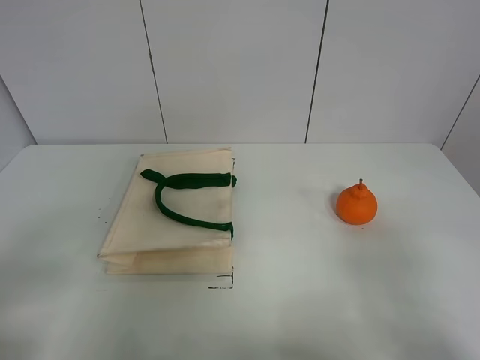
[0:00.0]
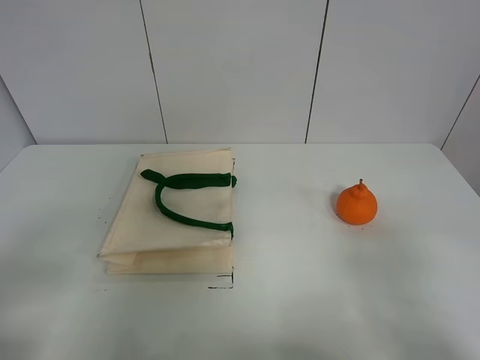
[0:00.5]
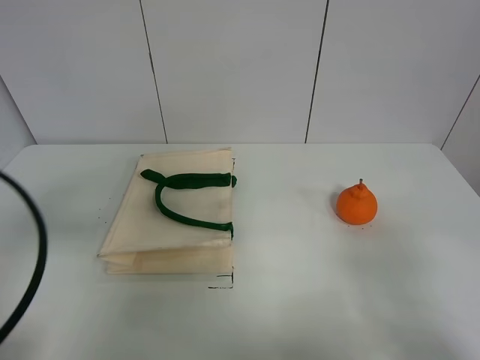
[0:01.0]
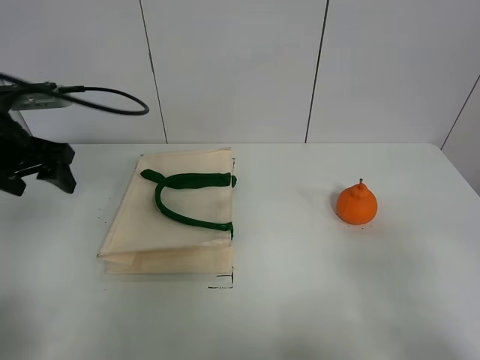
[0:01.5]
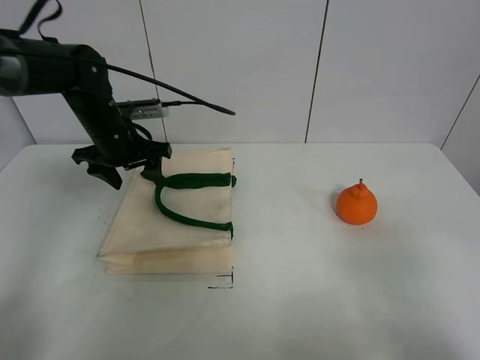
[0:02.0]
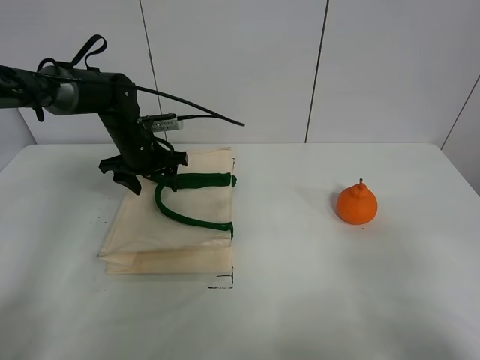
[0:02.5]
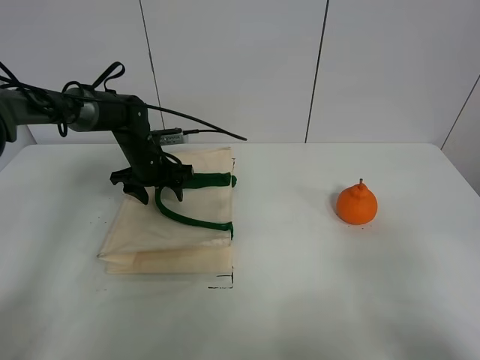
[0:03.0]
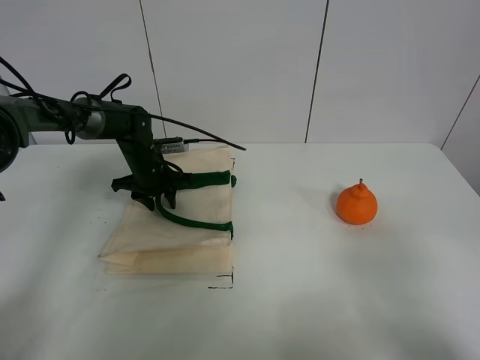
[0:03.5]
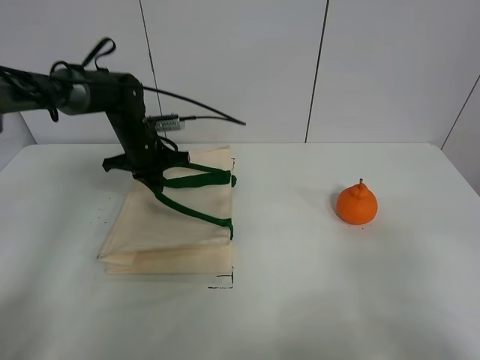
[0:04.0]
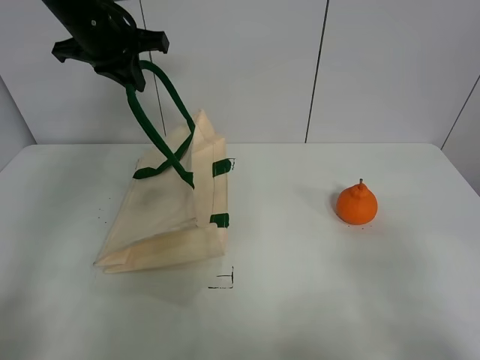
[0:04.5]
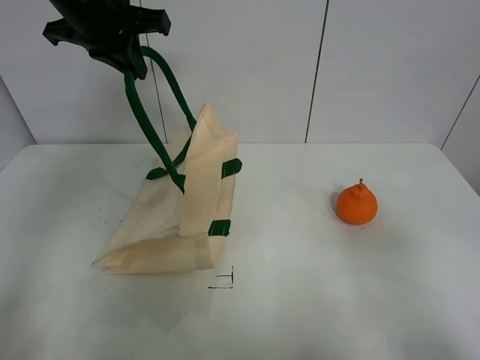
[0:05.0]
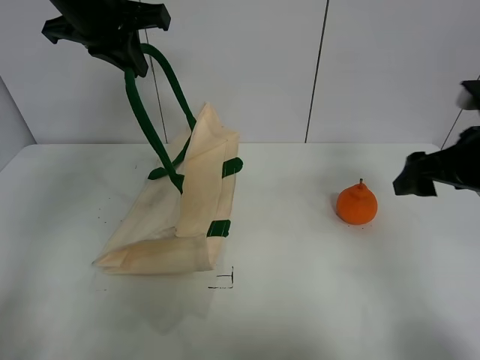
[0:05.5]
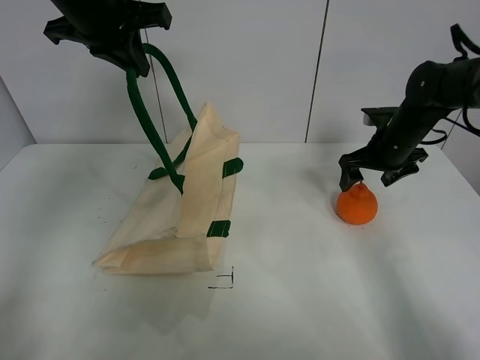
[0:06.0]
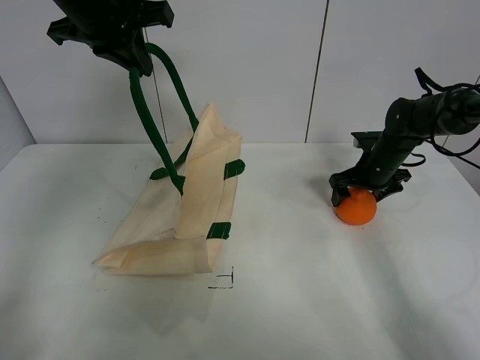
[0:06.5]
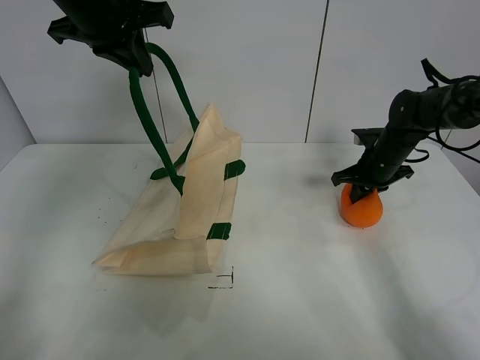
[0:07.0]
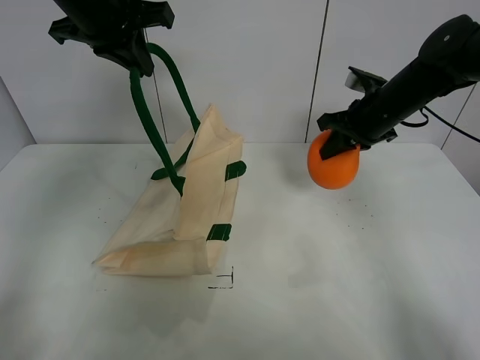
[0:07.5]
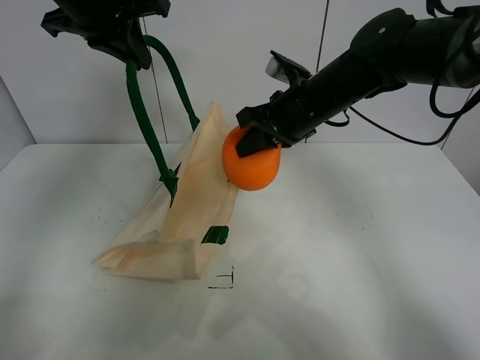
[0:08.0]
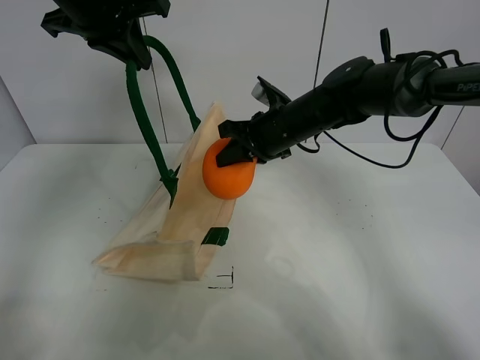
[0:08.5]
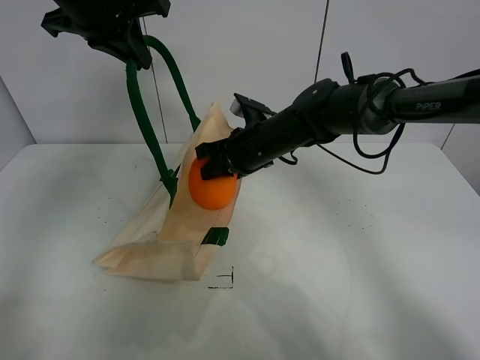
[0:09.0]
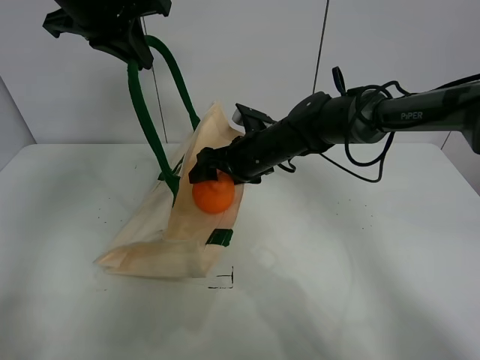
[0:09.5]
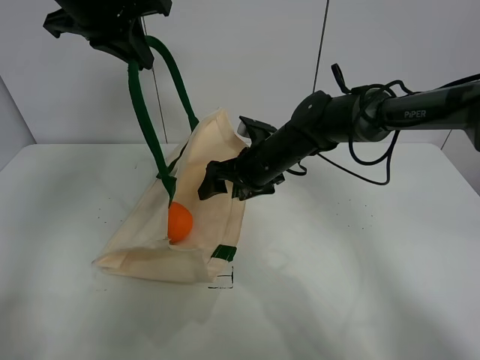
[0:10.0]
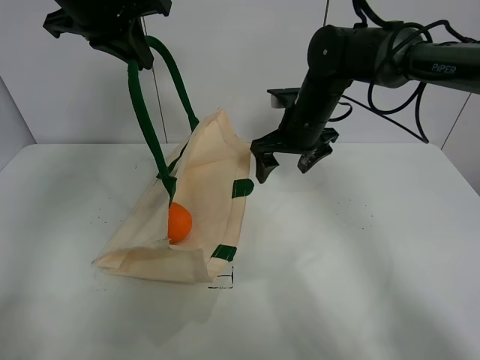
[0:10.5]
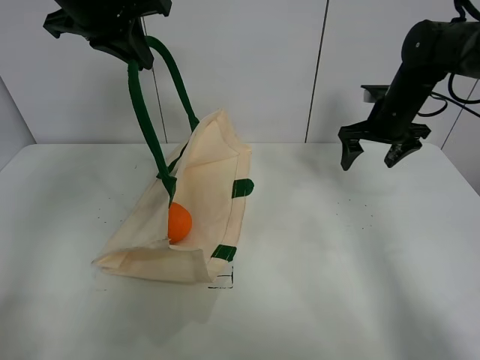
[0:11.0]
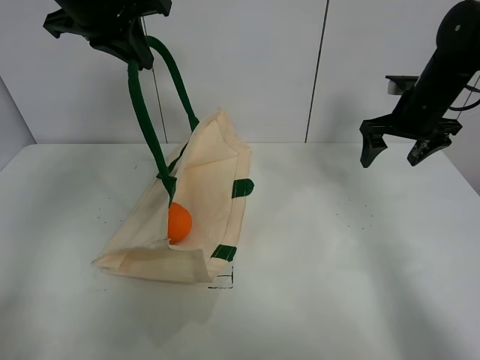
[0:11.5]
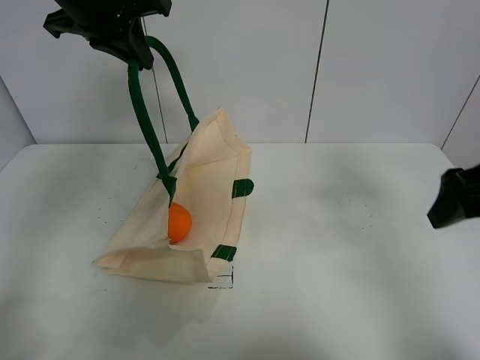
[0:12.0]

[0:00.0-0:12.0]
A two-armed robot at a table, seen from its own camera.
Task of the whole recording: open the white linen bag and put the orange in the bag.
Step, 0.0 to 4.5 s: Lift the handbag with left gripper.
Step, 5.0 to 7.0 s: Grasp the orange with right gripper.
Step, 7.5 to 9.5 s: Place the orange in the handbag with right gripper.
0.0 to 2.0 s: The left gripper goes roughly 40 cm forward.
2.0 to 4.0 s: The left gripper goes downward and returns, roughly 10 cm each way, and closes up.
4.0 to 6.0 s: The left gripper travels upward by about 25 cm. Meanwhile the right gripper shifts some 40 cm forward.
6.0 to 8.0 s: The right gripper goes some 20 cm to the left and upward, and closes.
8.0 to 10.0 s: The right gripper travels downward by some 10 cm, and opens up.
10.0 to 12.0 s: The right gripper shifts about 35 cm to the right, backward and upward.

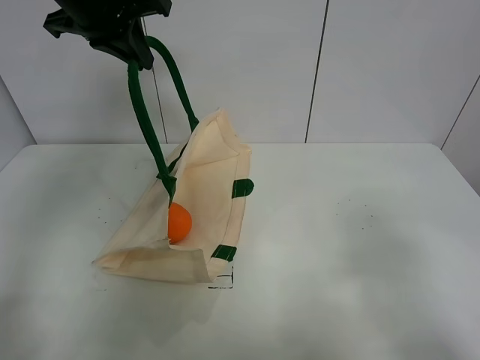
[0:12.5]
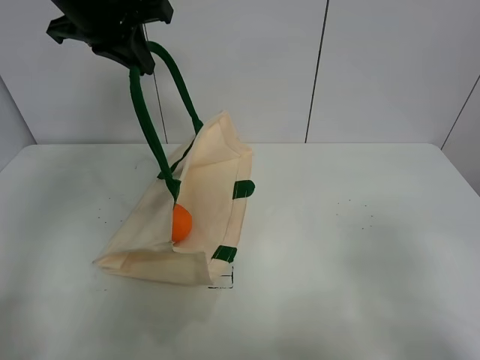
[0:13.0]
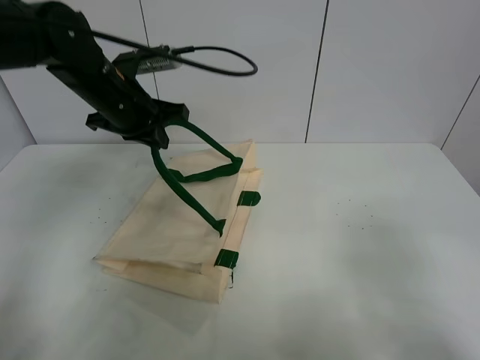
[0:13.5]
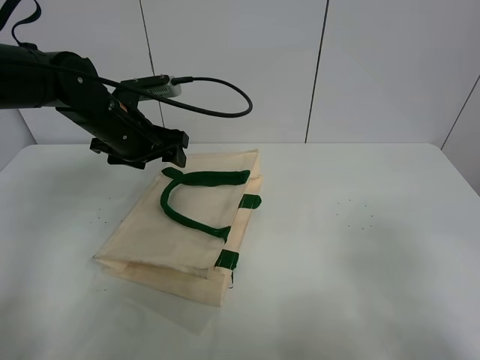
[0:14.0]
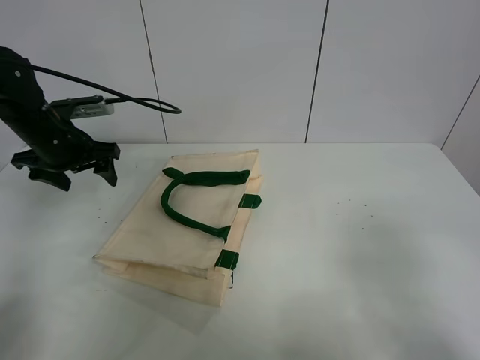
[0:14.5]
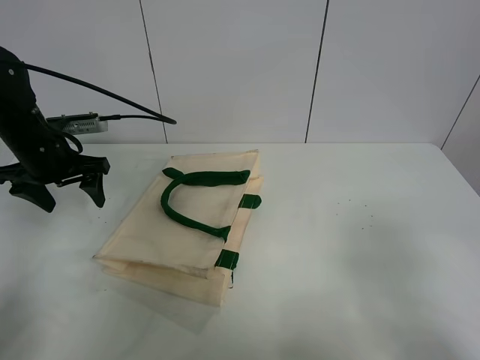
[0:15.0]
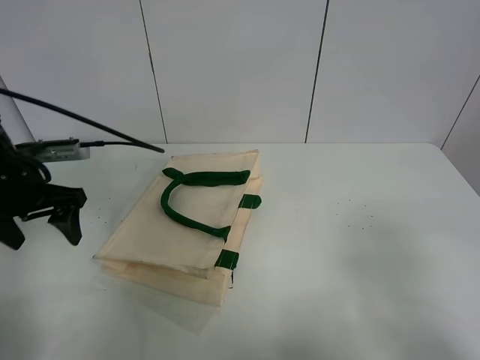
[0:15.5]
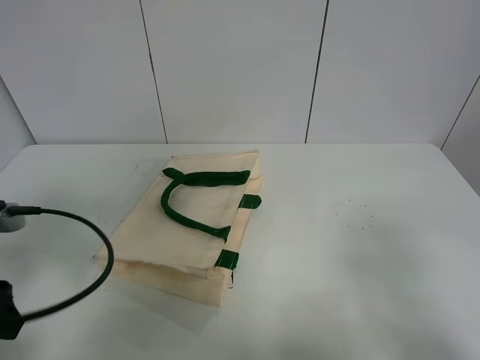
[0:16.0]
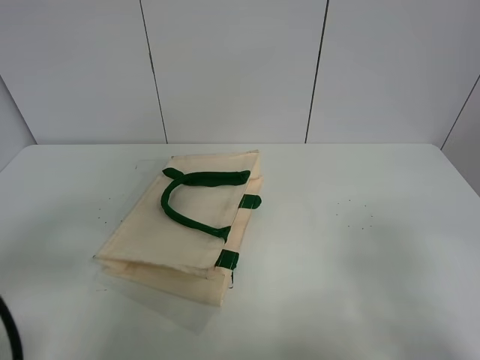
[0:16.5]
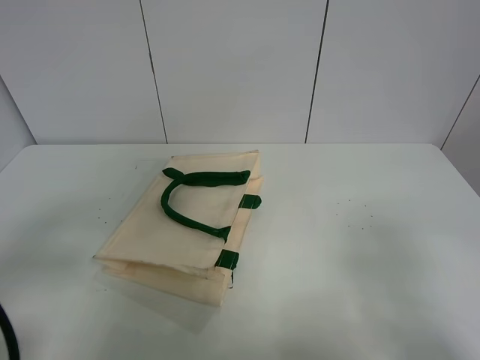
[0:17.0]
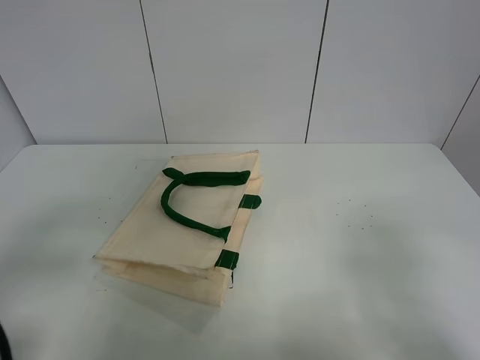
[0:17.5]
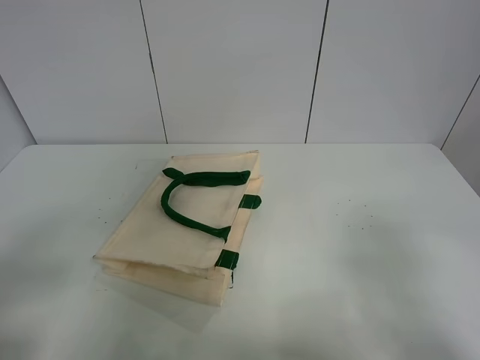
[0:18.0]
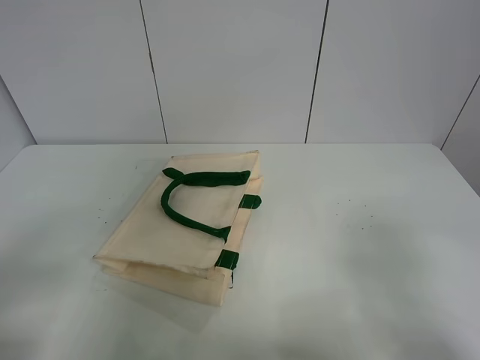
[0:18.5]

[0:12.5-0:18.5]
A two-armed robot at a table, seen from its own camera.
Task of the whole recording: open the white linen bag and put the orange in the bag.
12.5 to 14.5 s: The left gripper moves downward and to the left, some 20 cm, and opens up.
14.5 to 16.5 s: The left gripper moves backward, roughly 30 cm.

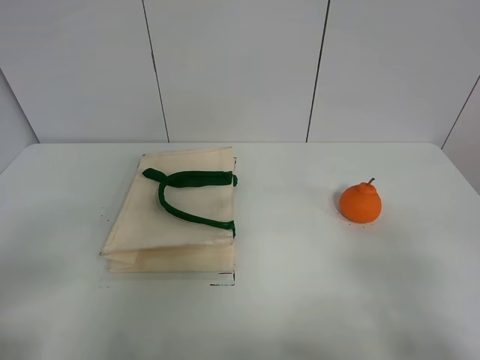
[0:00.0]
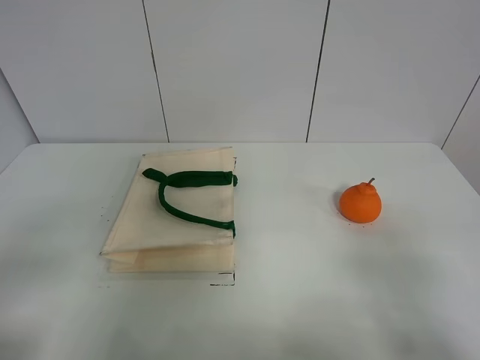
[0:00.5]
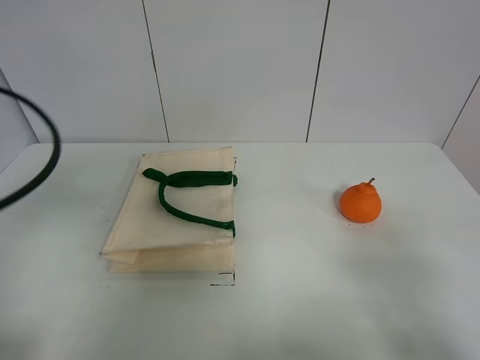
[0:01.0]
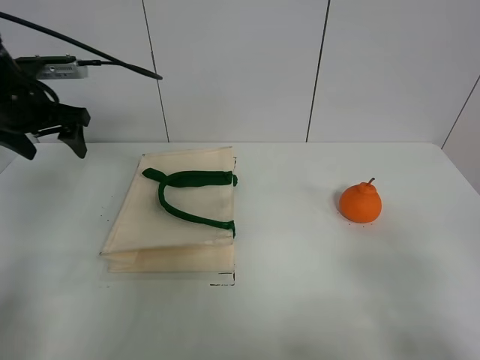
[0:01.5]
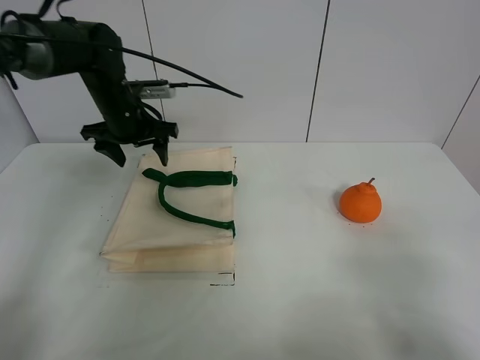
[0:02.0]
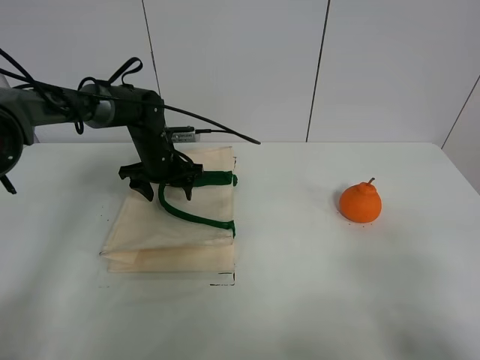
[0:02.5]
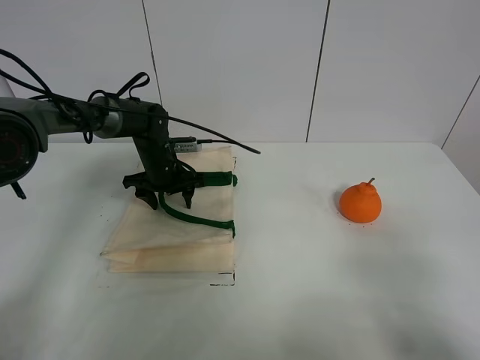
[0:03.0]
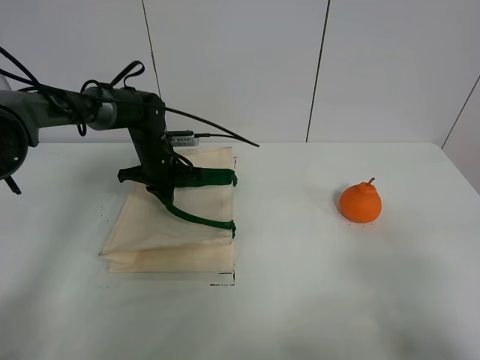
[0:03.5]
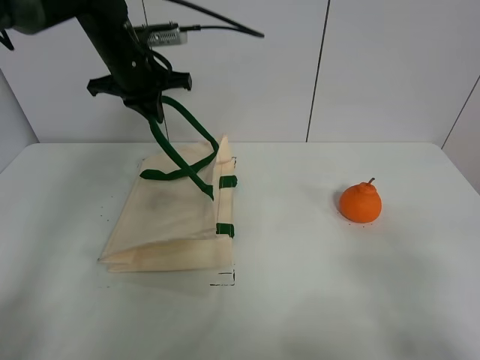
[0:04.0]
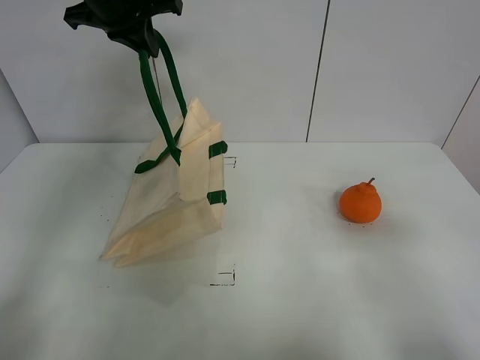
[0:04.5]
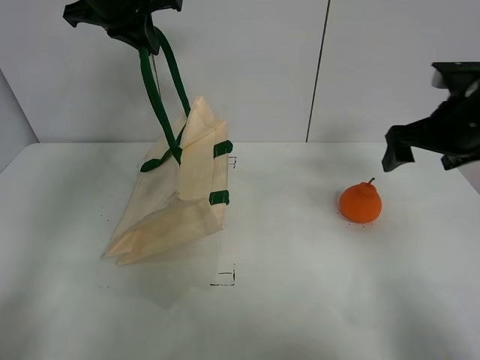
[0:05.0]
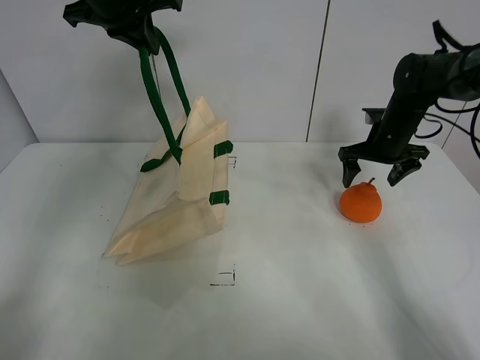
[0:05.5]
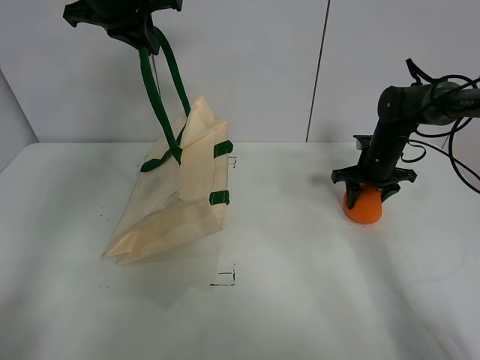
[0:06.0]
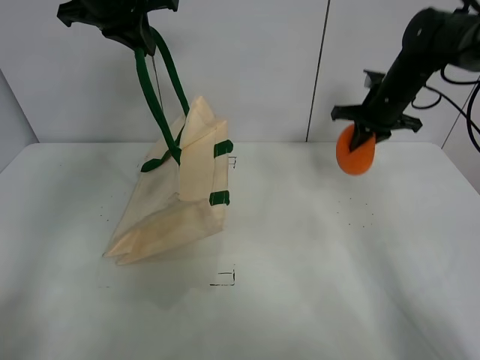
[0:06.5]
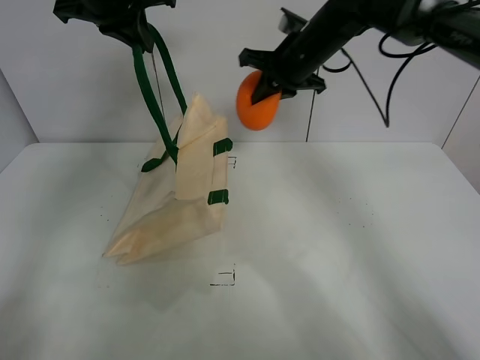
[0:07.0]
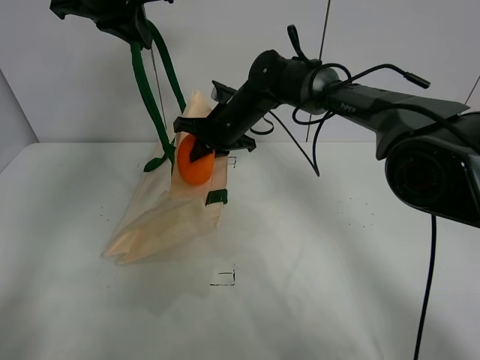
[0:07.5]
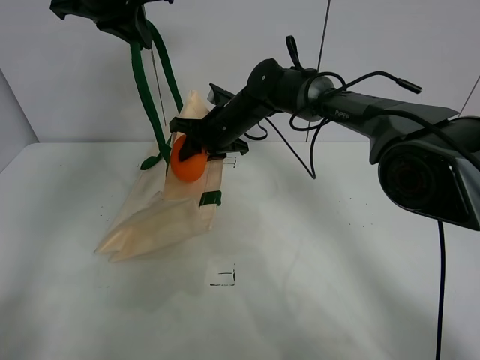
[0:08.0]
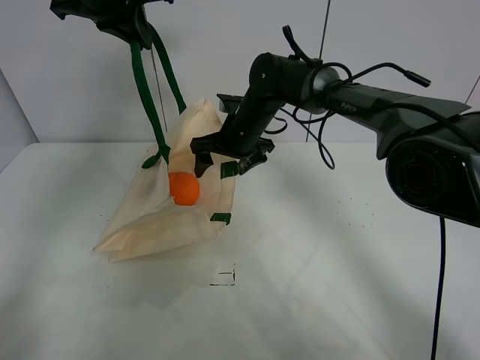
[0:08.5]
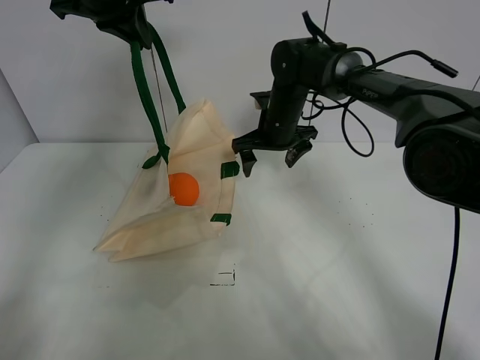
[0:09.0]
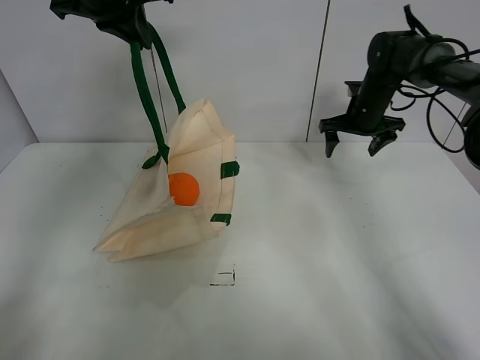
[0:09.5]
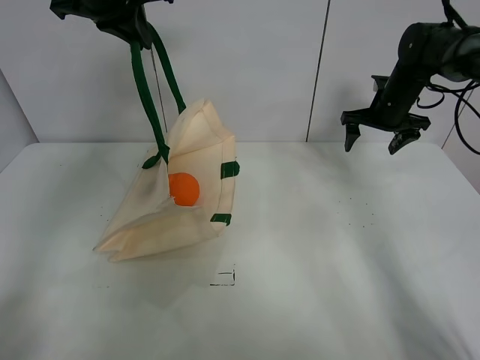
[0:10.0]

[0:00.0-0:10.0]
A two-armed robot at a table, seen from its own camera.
Task of the whole recording: open the white linen bag and put the orange in the bag.
Step, 0.0 to 4.0 s: Lift the handbag with left gripper.
Step, 4.5 to 6.0 s: Grasp the orange with right gripper.
Step, 6.5 to 8.0 s: Place the orange in the handbag with right gripper.
0.0 to 2.0 s: The left gripper is displaced forward by about 40 cm.
2.0 to 4.0 s: The left gripper moves upward, roughly 10 cm, and closes.
4.0 to 6.0 s: The right gripper moves forward, about 50 cm, and closes up, while the left gripper goes roughly 10 cm upward.
6.0 to 8.0 s: The right gripper moves to the left, approximately 30 cm.
8.0 to 10.0 s: The right gripper heads to the right, covering roughly 30 cm, and opens up.
